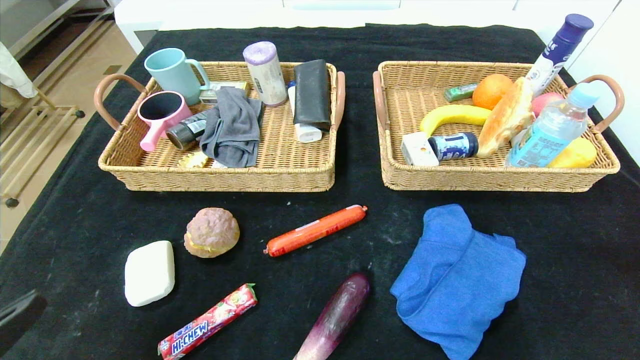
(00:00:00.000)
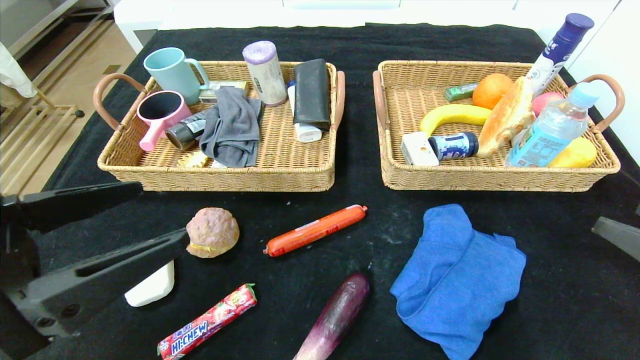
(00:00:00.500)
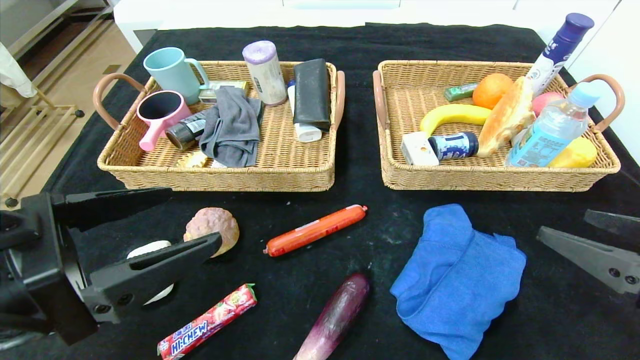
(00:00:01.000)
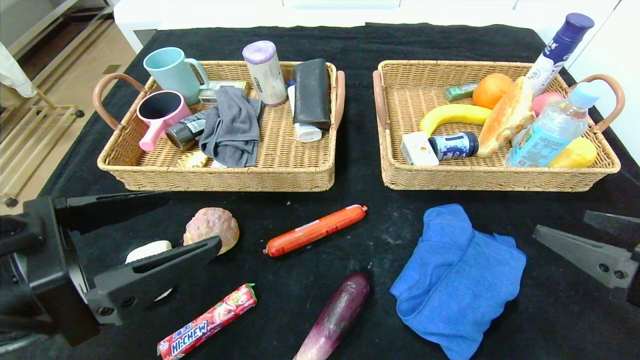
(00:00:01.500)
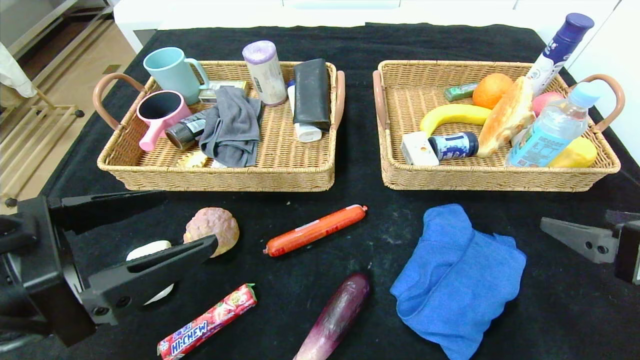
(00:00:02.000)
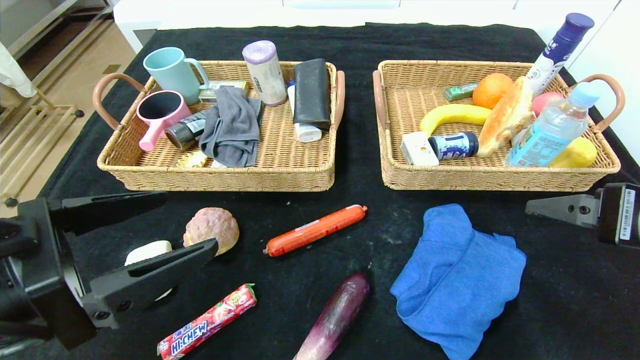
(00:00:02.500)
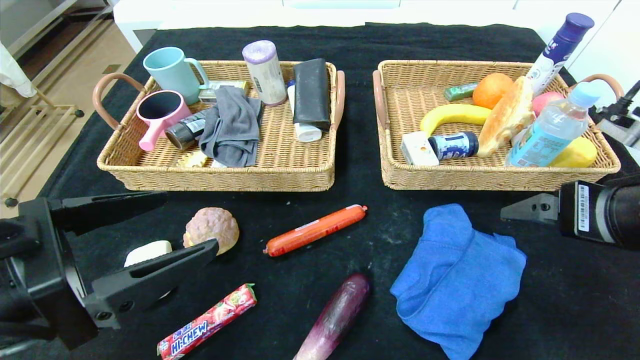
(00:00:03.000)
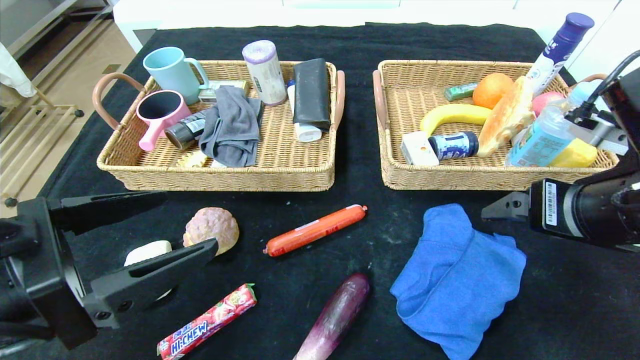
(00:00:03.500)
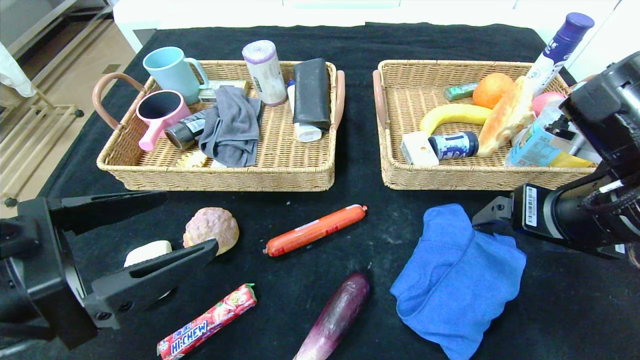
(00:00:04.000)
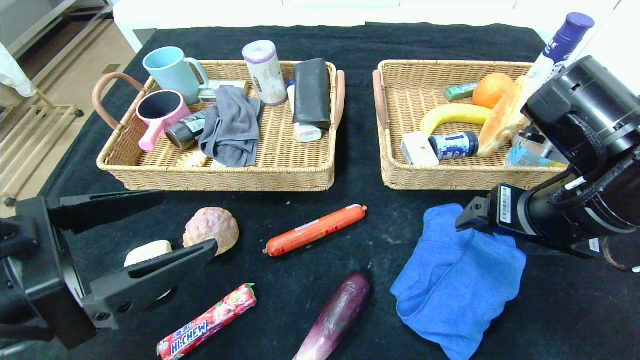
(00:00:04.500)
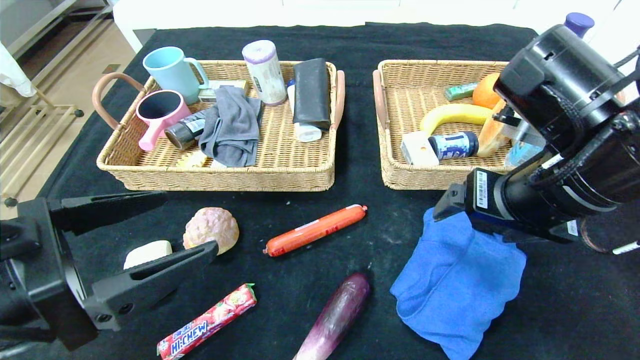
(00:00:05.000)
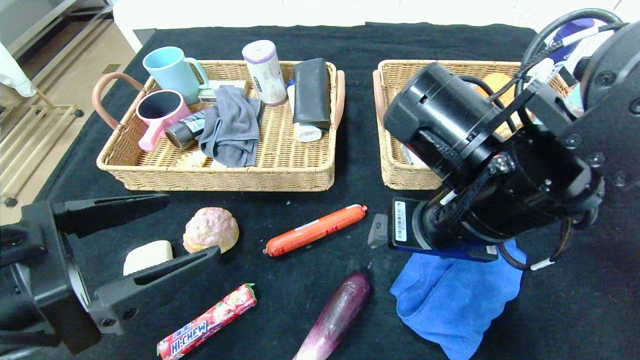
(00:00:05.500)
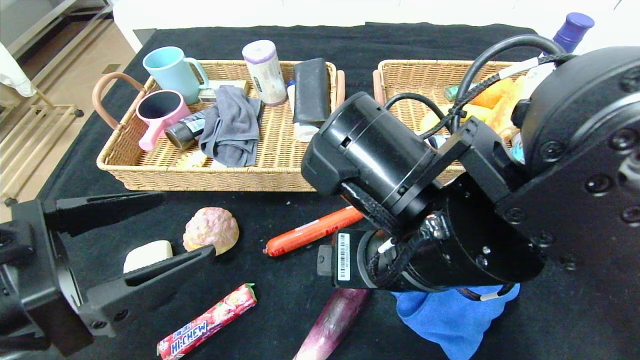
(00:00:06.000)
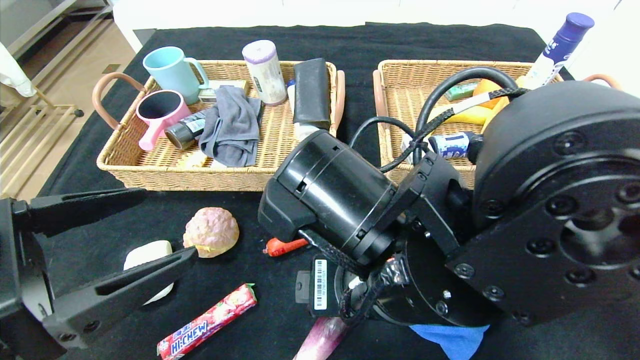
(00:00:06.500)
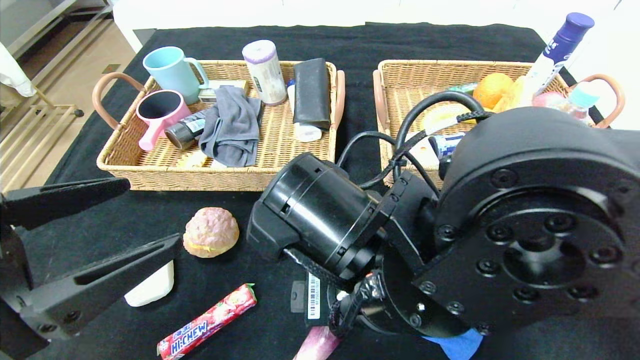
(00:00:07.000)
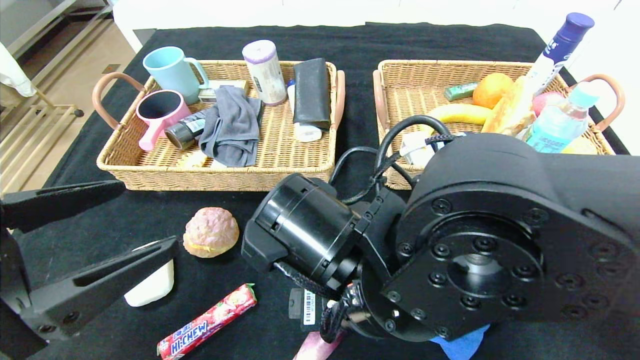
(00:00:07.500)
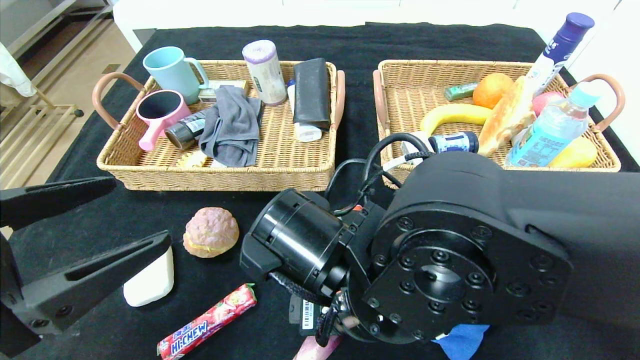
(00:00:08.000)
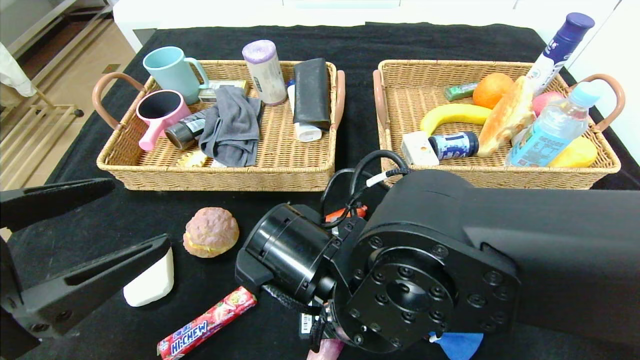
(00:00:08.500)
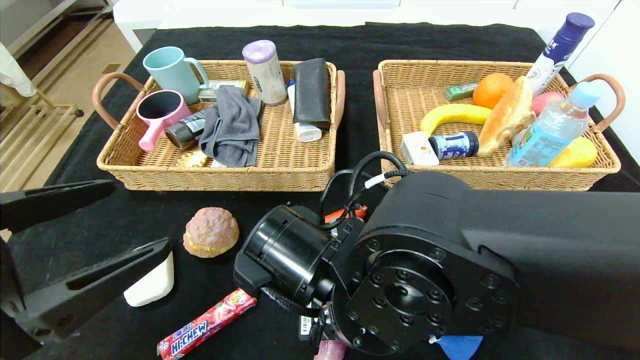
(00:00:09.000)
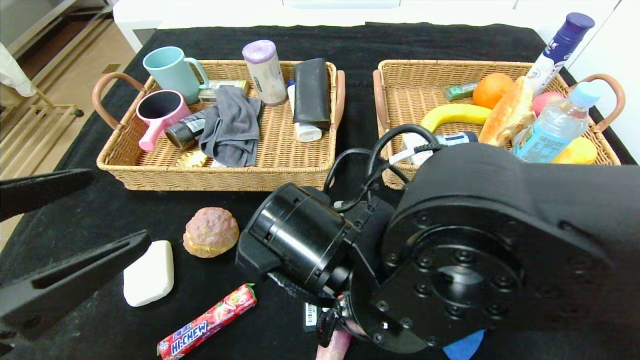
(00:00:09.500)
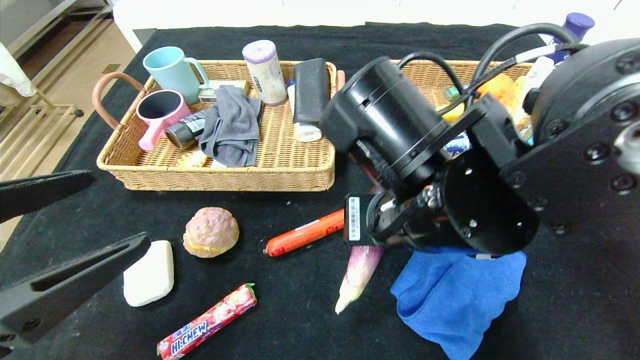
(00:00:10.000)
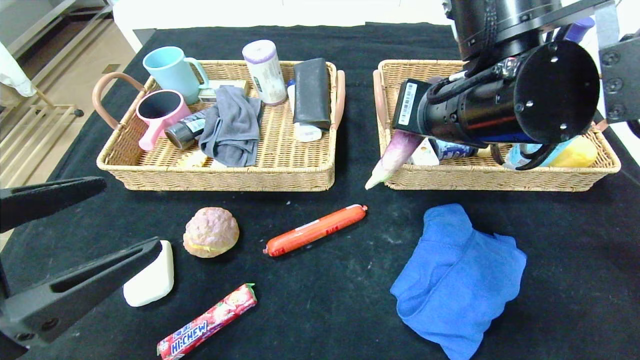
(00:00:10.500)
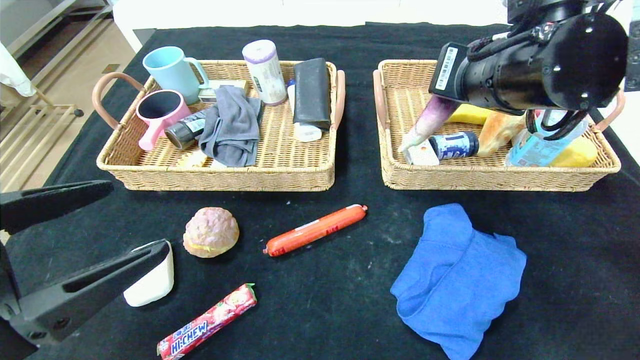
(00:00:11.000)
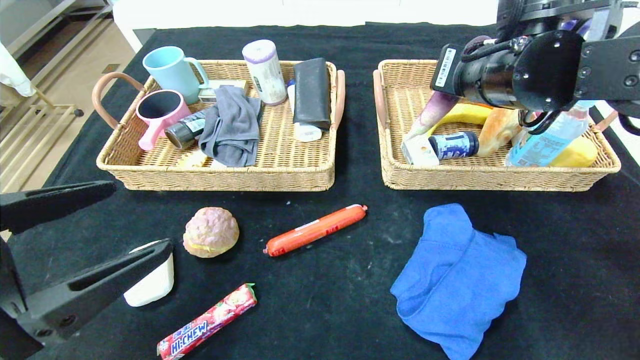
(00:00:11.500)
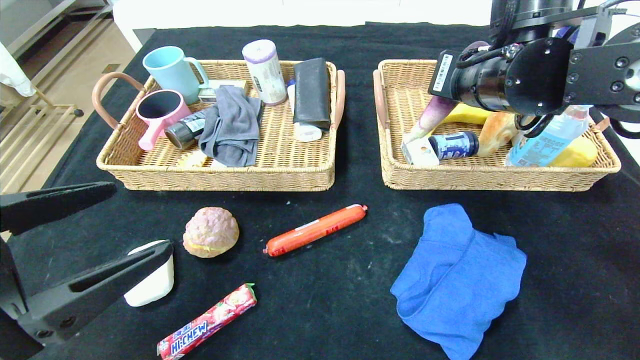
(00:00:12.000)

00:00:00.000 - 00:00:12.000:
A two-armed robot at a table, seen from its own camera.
00:00:00.000 - 00:00:02.000: The left gripper moves forward and to the right, roughly 10 cm, while the right gripper moves forward and to the left, some 15 cm.
00:00:02.000 - 00:00:04.000: The right gripper travels to the left and forward by about 10 cm.
00:00:04.000 - 00:00:06.000: The right gripper shifts approximately 15 cm to the left.
00:00:06.000 - 00:00:08.000: The right gripper shifts approximately 5 cm downward.
00:00:08.000 - 00:00:10.000: The right gripper heads upward and to the right, covering roughly 10 cm, and closes.
00:00:10.000 - 00:00:12.000: The right gripper shifts some 15 cm forward, to the right and upward.

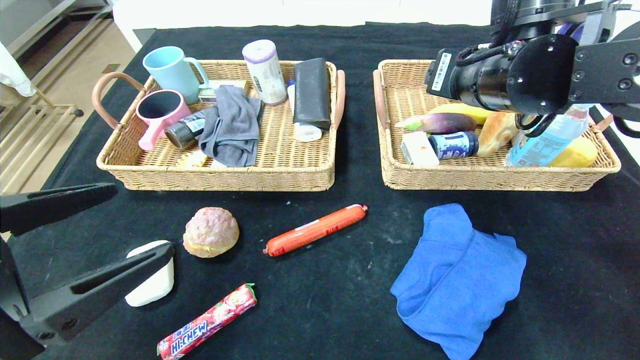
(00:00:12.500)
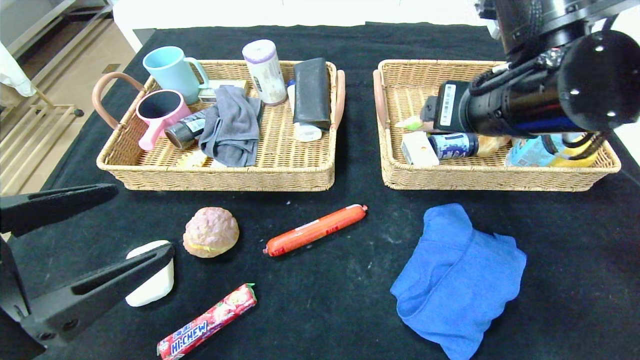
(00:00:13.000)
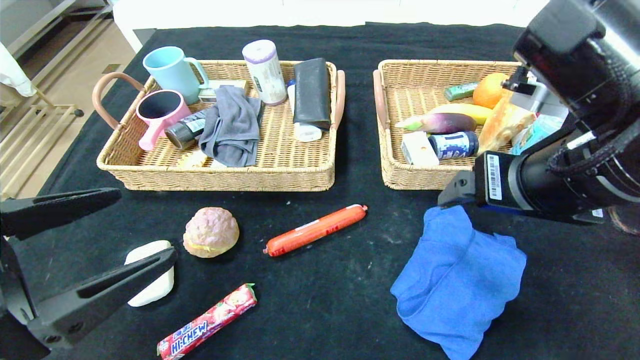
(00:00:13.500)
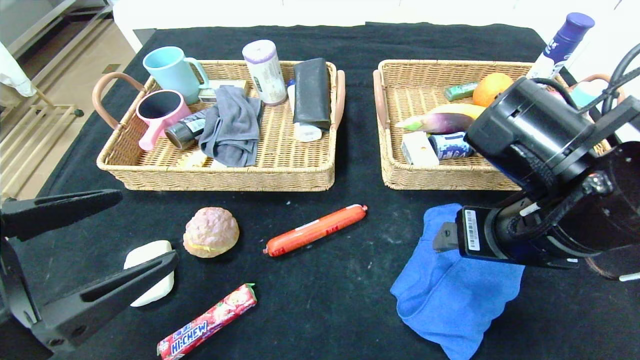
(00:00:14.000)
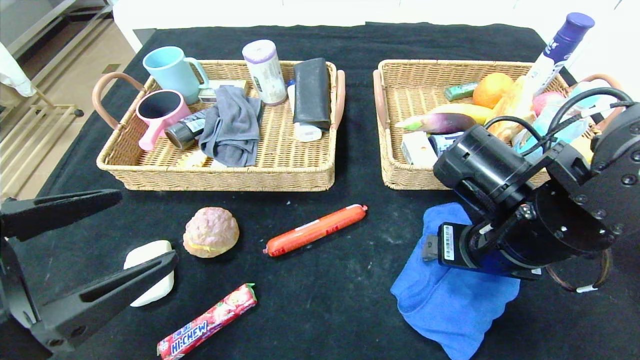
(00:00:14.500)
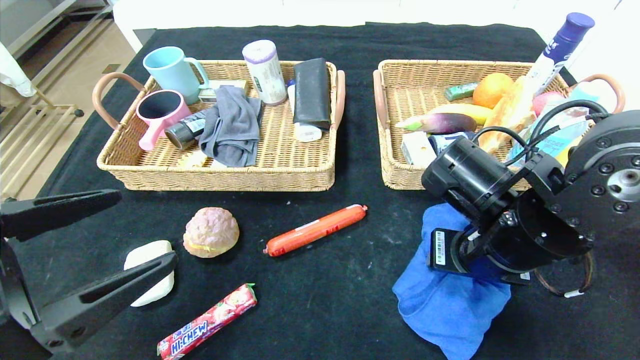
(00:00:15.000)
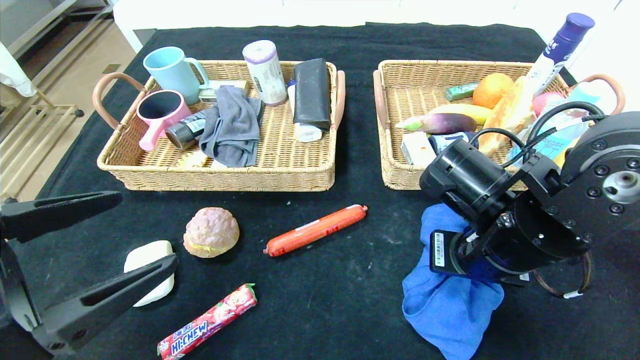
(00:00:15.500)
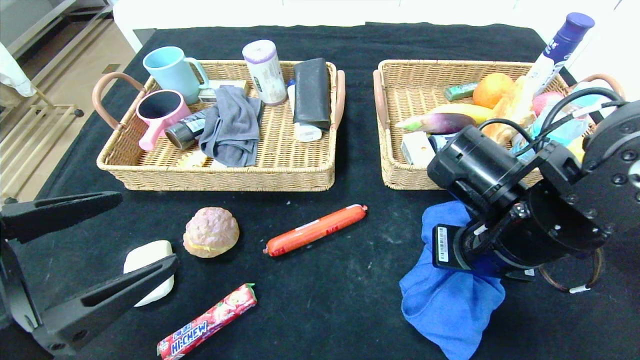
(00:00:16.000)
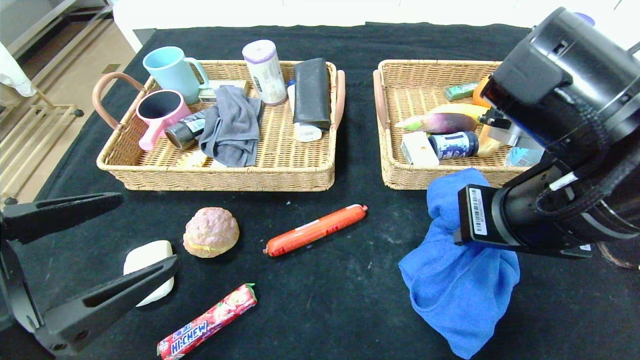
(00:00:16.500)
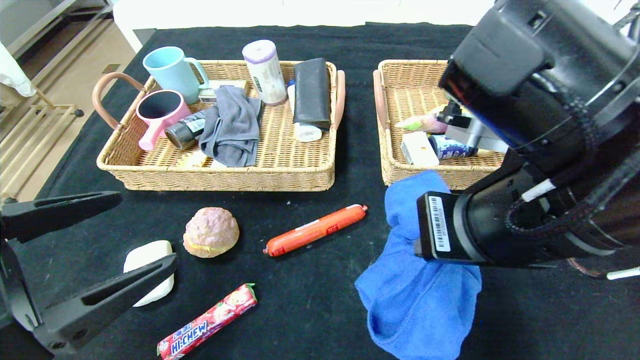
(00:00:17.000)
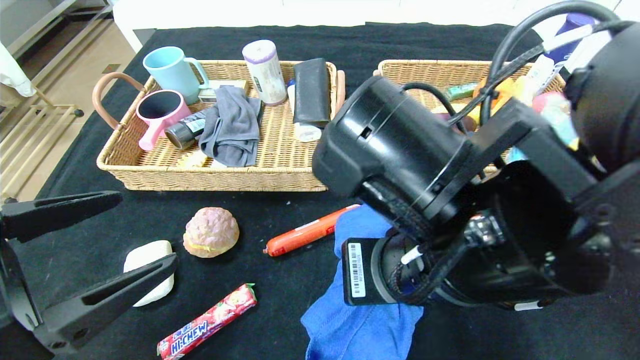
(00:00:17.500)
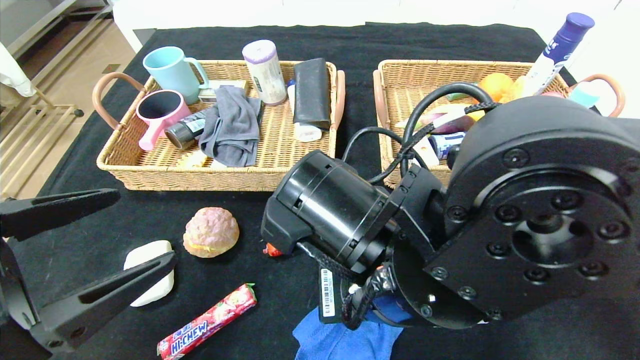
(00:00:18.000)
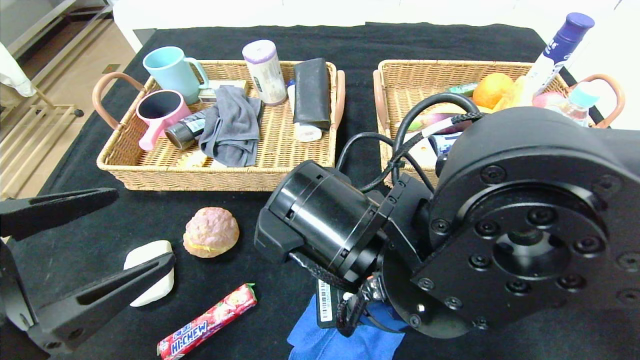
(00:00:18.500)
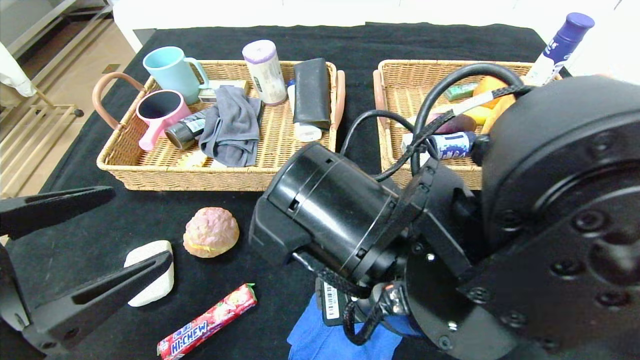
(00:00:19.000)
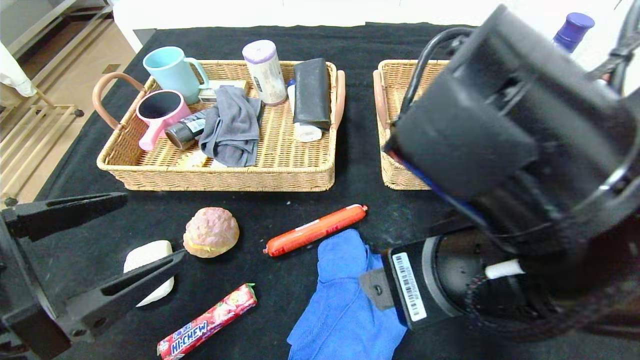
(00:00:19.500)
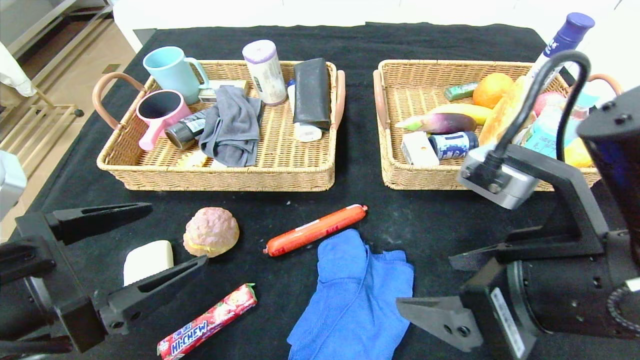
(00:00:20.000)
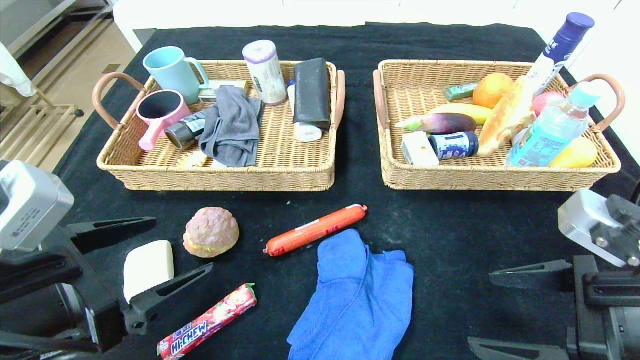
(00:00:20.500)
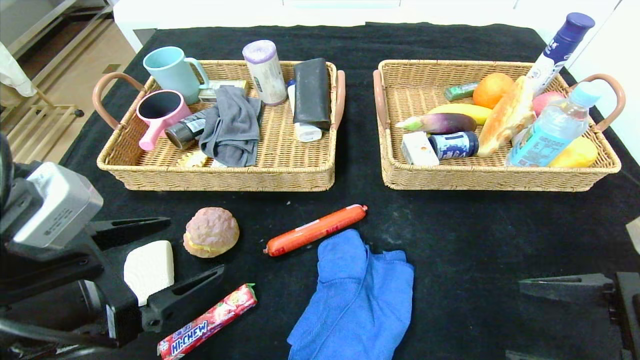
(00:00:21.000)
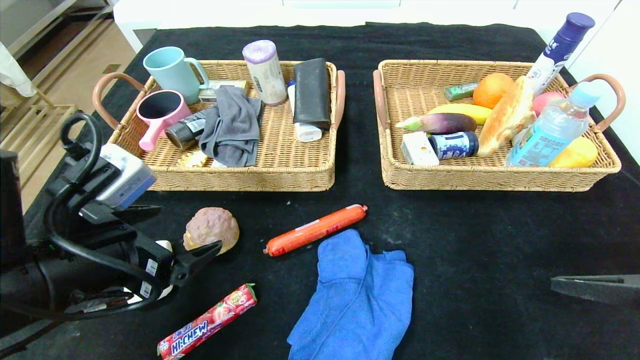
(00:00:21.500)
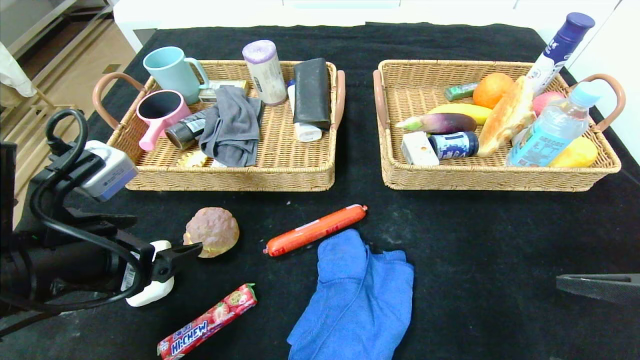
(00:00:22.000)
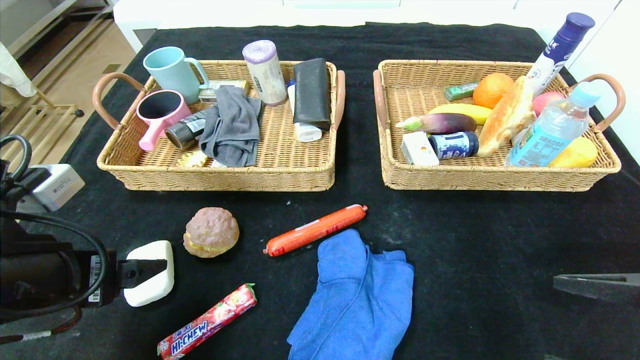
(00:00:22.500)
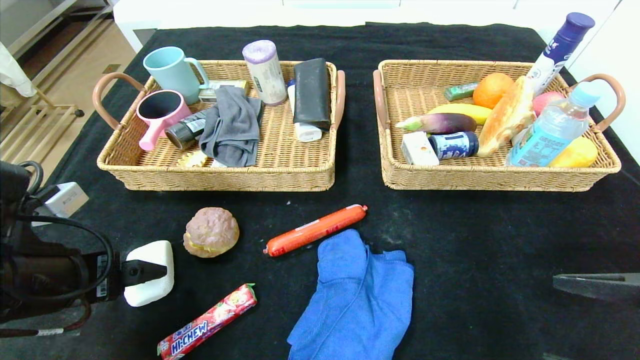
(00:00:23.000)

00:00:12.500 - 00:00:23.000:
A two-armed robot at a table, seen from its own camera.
Step, 00:00:13.500 - 00:00:20.000: Place the blue towel in the center of the table.
00:00:12.500 - 00:00:14.500: The right gripper goes approximately 15 cm downward and backward.
00:00:14.500 - 00:00:16.500: The right gripper is displaced upward by some 10 cm, and closes up.
00:00:16.500 - 00:00:19.000: The right gripper is displaced to the left and downward by about 15 cm, and opens its fingers.
00:00:19.000 - 00:00:21.000: The right gripper travels to the right by roughly 25 cm; the left gripper moves roughly 5 cm.
00:00:21.000 - 00:00:23.000: The left gripper changes place by roughly 5 cm.
